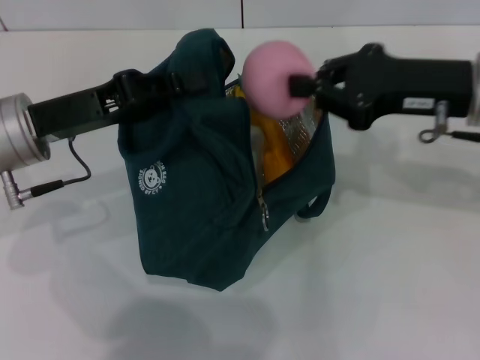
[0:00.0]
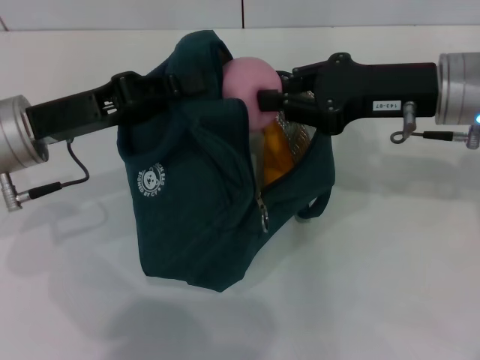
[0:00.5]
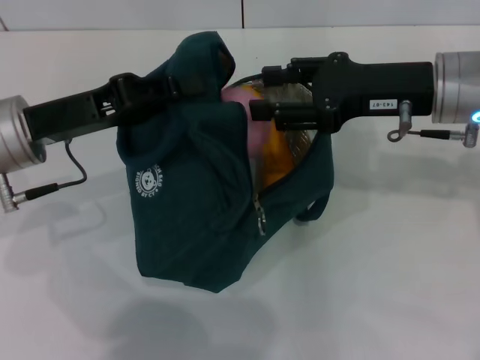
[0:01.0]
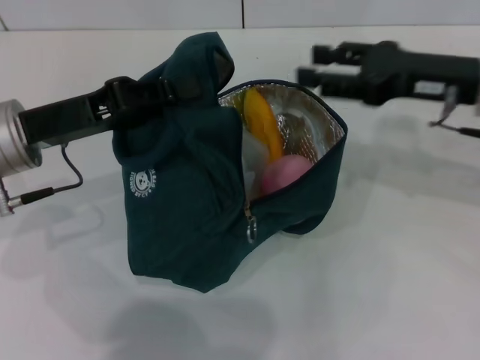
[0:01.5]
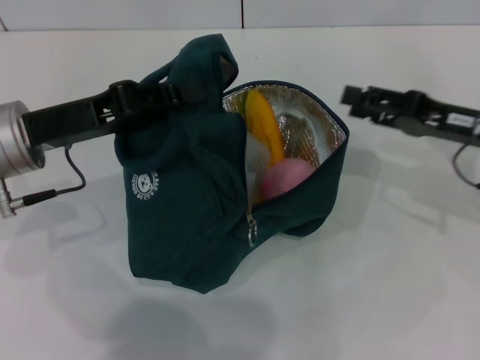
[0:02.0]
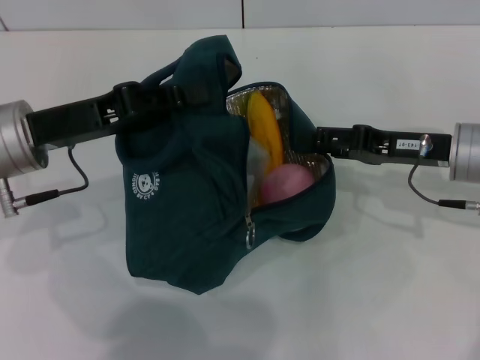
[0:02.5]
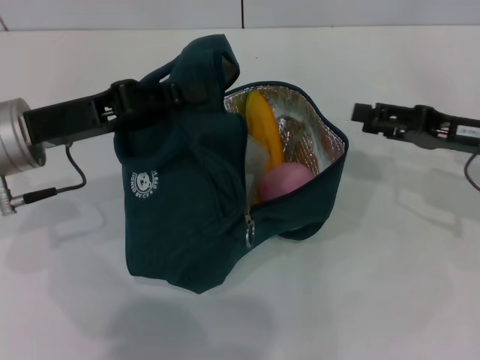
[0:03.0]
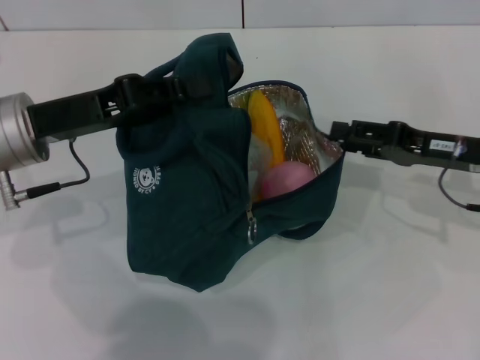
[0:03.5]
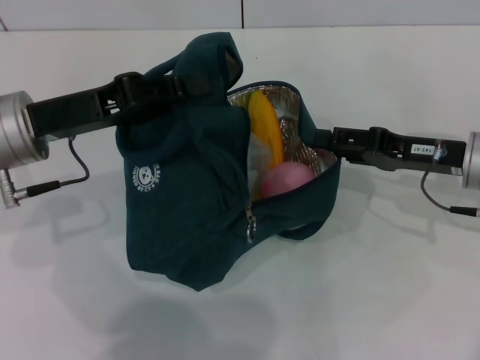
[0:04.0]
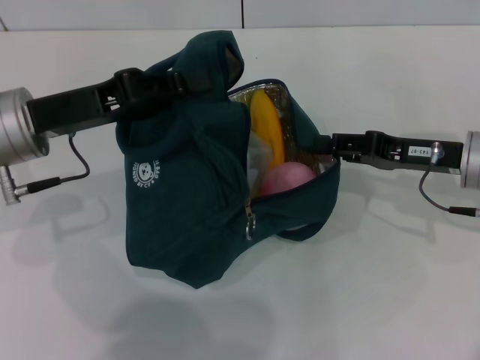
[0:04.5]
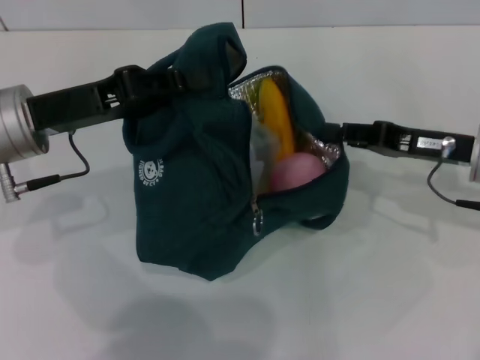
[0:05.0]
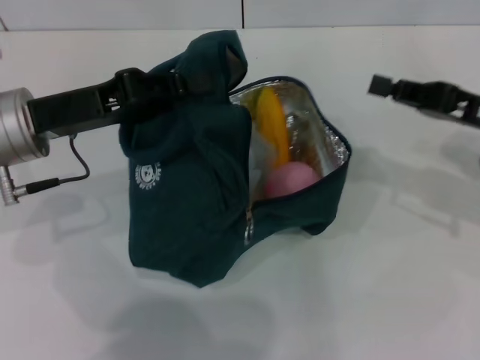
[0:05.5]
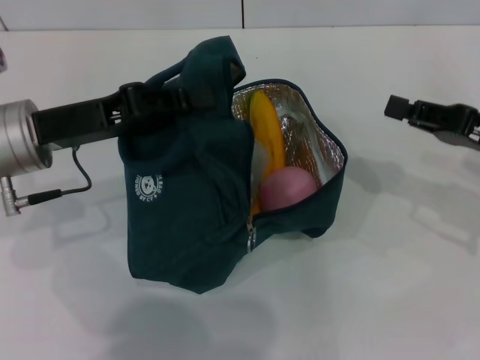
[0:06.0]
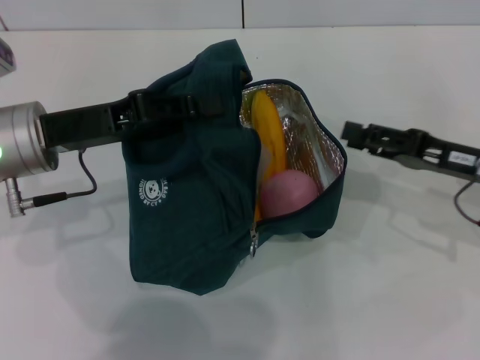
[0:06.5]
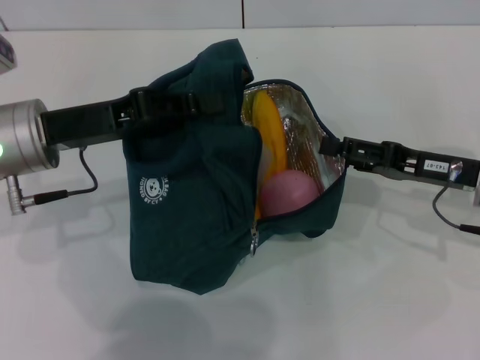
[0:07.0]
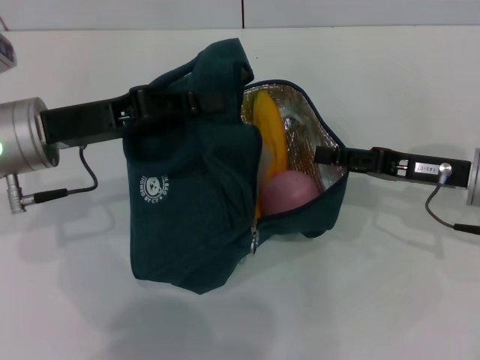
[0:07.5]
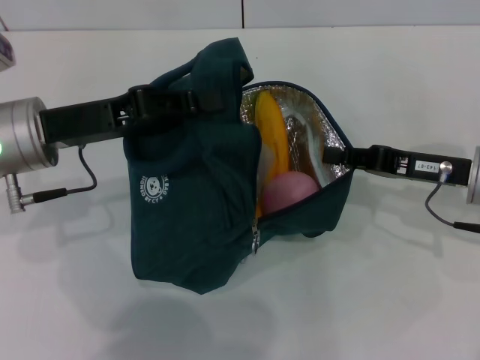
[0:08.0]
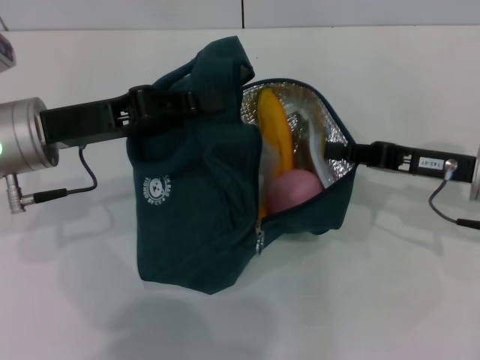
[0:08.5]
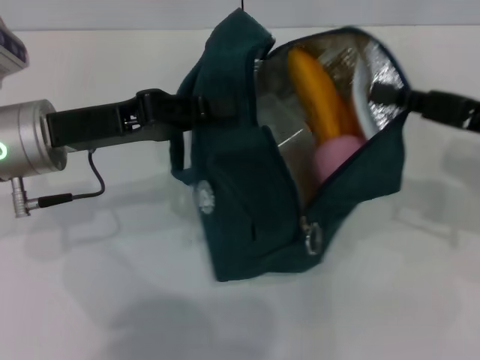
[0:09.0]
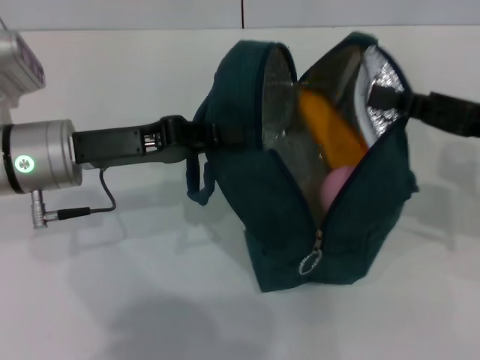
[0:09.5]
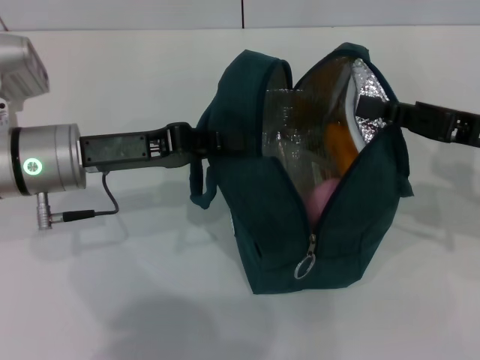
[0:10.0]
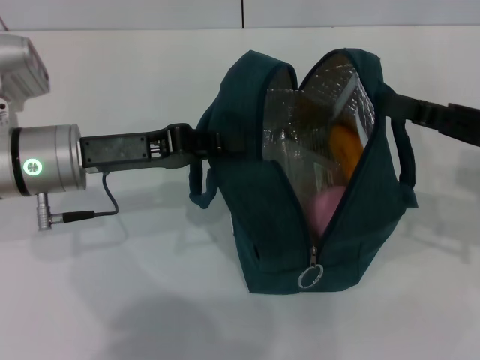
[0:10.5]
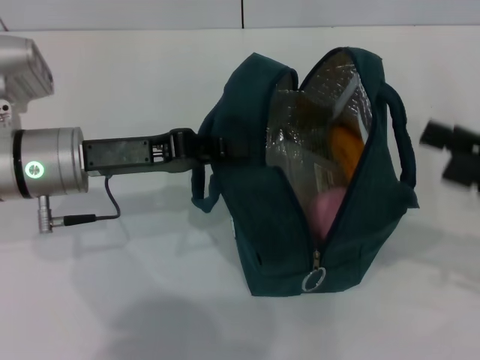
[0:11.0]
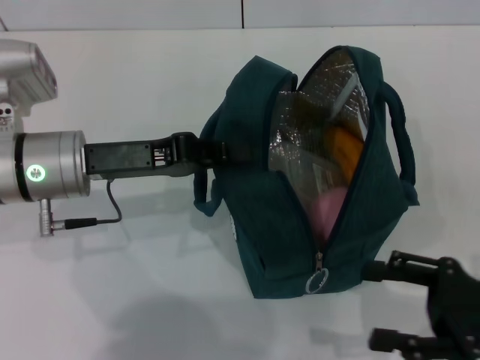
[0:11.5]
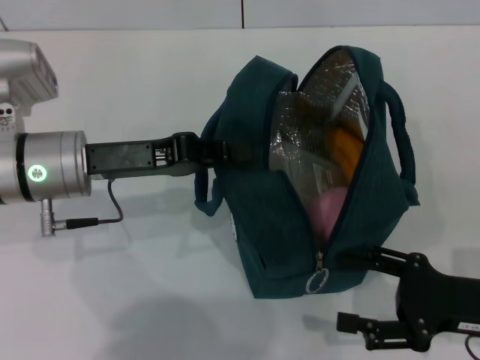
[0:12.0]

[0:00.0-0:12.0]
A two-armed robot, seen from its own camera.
Step, 0:01.5 to 0:10.5: Hold the lunch bag with your right hand.
0:00.0 to 0:02.0: The right gripper is displaced downward and to the right by roughly 10 cm, and opens its fingers.
0:02.0 to 0:04.0: The grippers make only small movements.
0:04.0 to 0:06.0: The right gripper shifts about 5 cm to the right, and closes.
0:06.0 to 0:08.0: The right gripper is displaced to the left by some 5 cm, and opens, then closes again.
0:08.0 to 0:10.0: The right gripper goes roughly 5 cm upward.
0:10.0 to 0:12.0: The right gripper is displaced backward and downward by approximately 15 cm, and opens up.

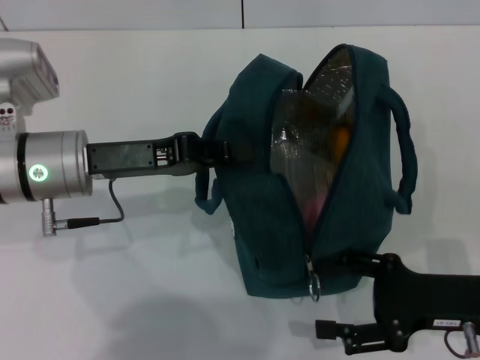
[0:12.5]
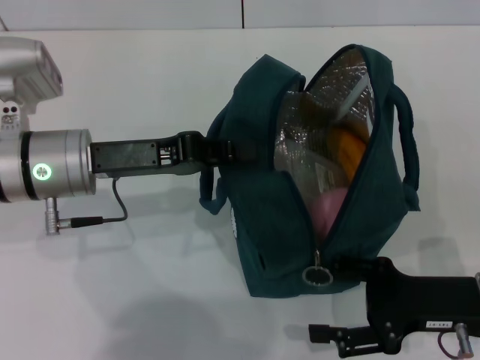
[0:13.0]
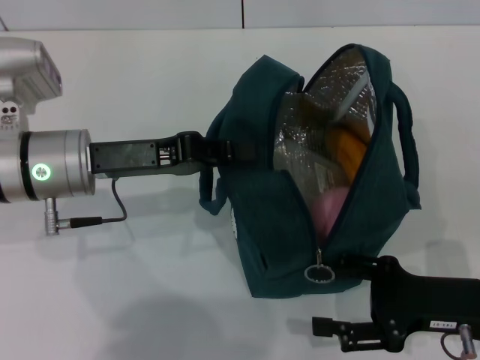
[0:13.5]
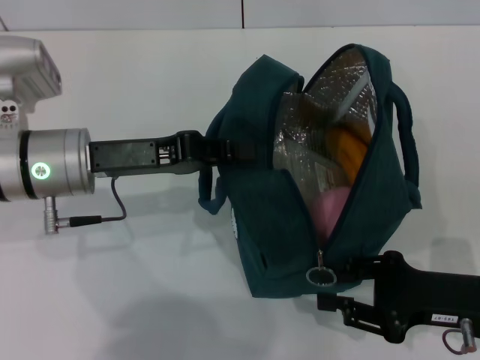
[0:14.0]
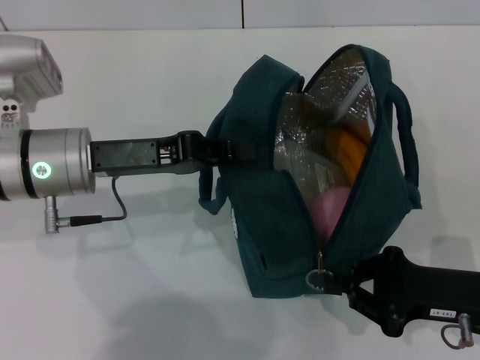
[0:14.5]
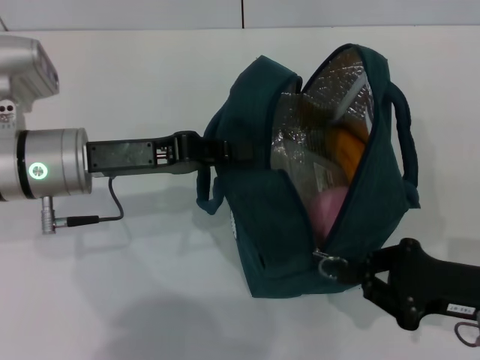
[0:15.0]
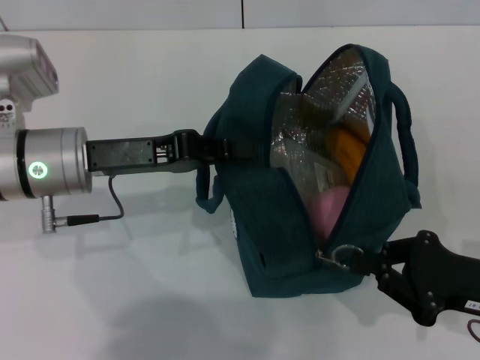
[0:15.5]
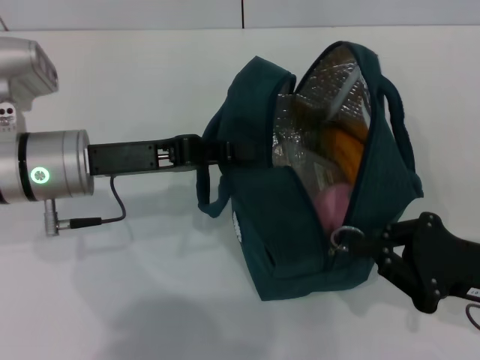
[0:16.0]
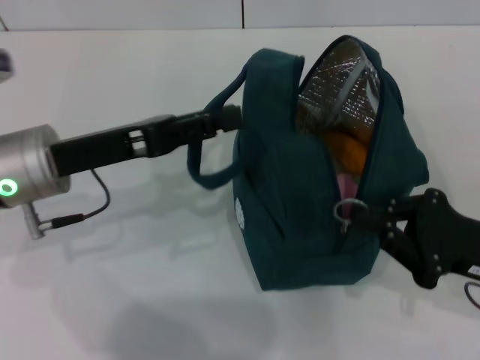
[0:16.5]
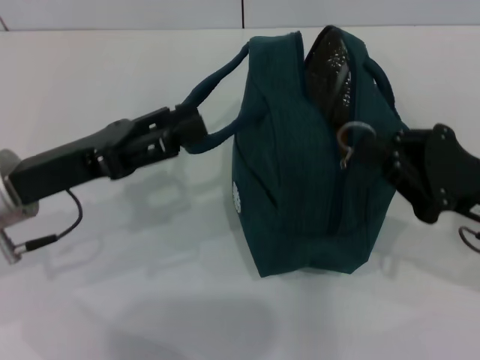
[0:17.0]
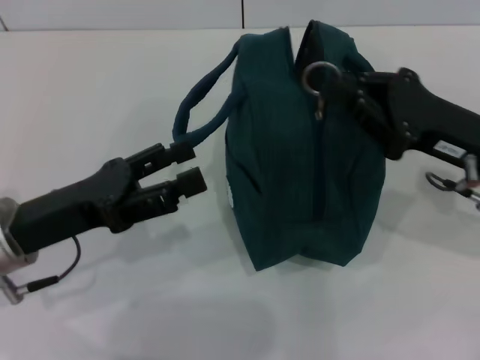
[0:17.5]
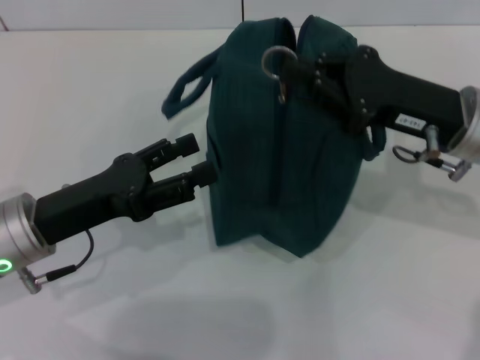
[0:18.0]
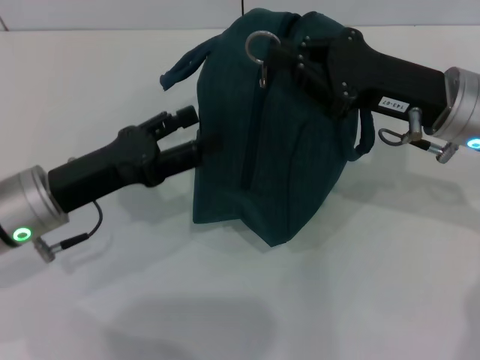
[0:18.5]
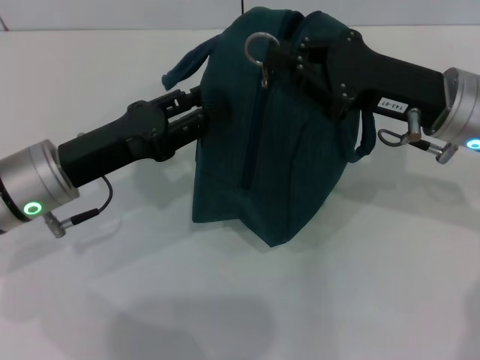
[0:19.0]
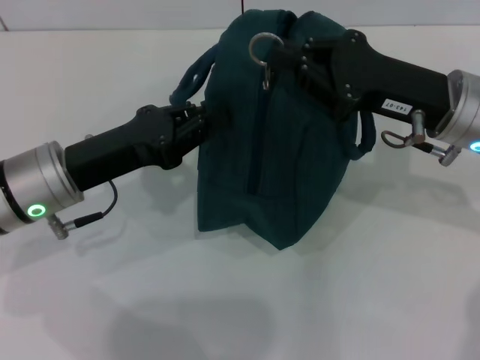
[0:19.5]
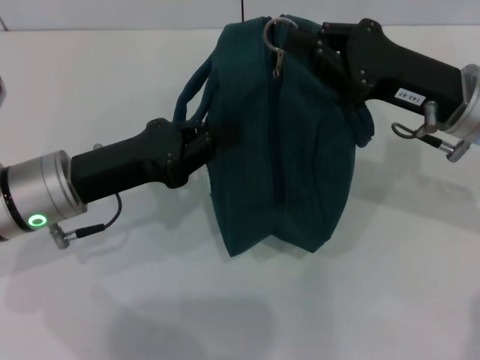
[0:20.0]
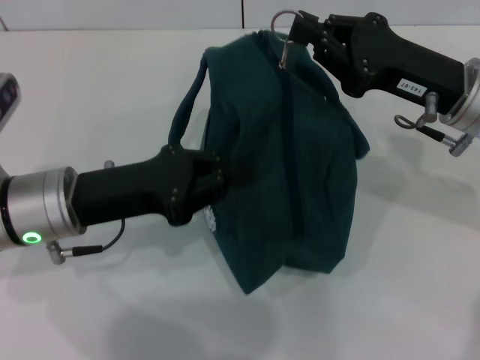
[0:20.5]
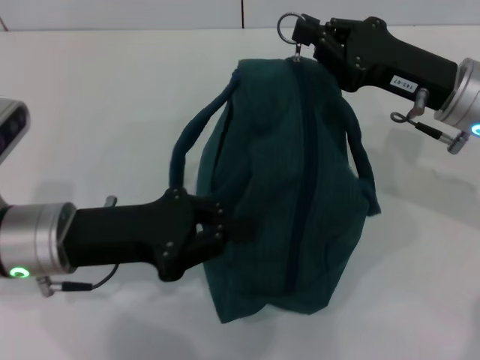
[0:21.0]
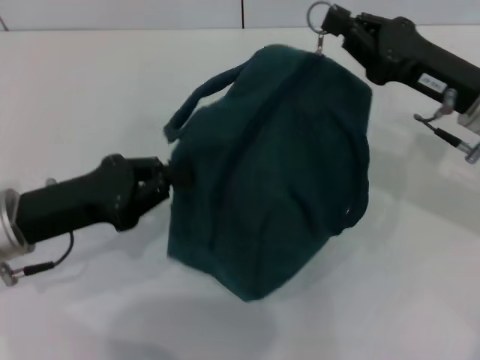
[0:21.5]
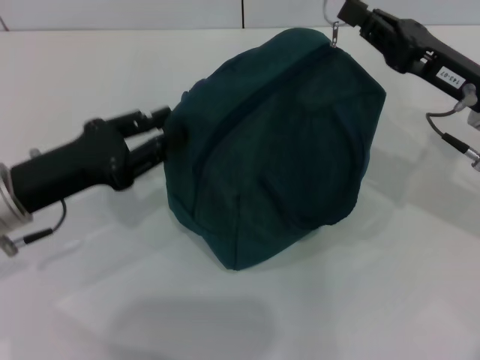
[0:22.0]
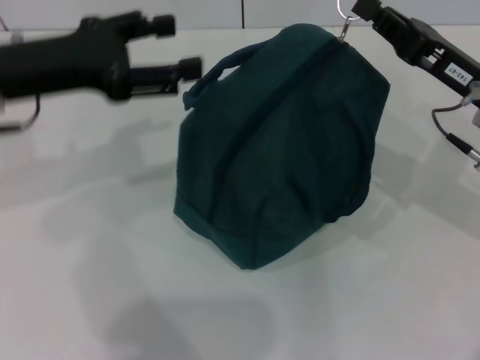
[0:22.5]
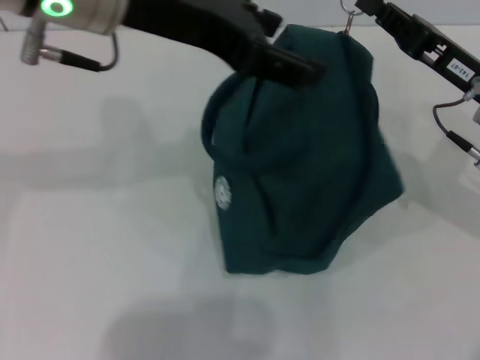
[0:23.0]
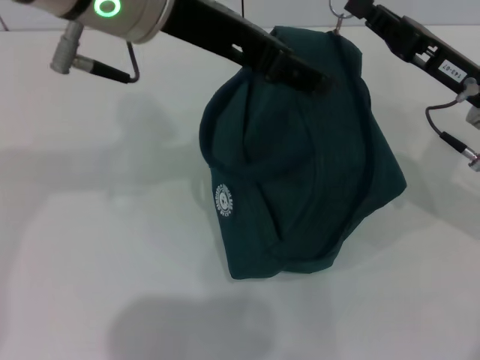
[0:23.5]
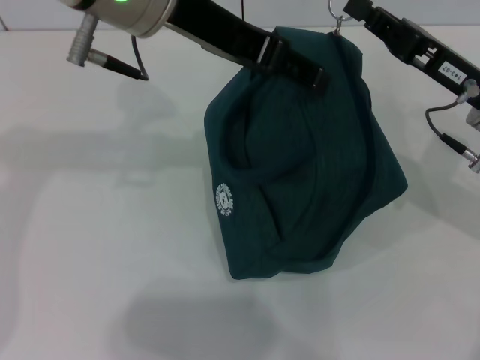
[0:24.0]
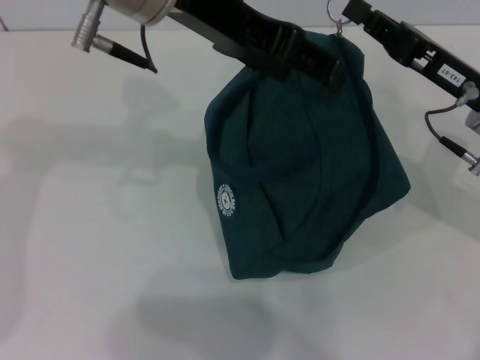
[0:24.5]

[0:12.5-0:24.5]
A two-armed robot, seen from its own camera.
Step, 0:12.5 to 0:16.0: Hold the lunch bag with your left hand.
0:12.5 to 0:14.5: The right gripper closes its fingers.
0:14.5 to 0:16.5: The left gripper opens up.
0:16.5 to 0:18.5: The right gripper heads forward, to the left and upward, covering some 15 cm, while the left gripper ends up about 5 cm from where it was, and opens its fingers.
0:18.5 to 0:20.5: The left gripper closes its fingers.
0:20.5 to 0:22.5: The left gripper shifts roughly 10 cm upward, and opens.
0:22.5 to 0:24.5: The left gripper moves to the right and upward, some 20 cm.

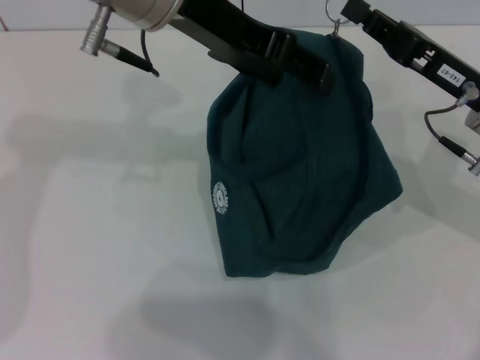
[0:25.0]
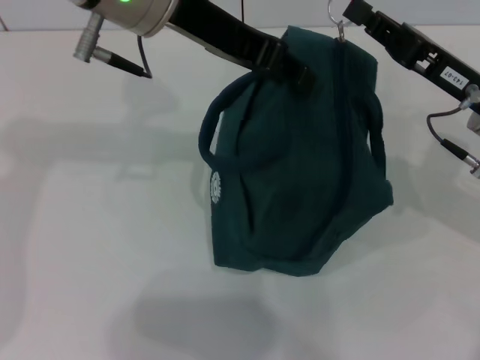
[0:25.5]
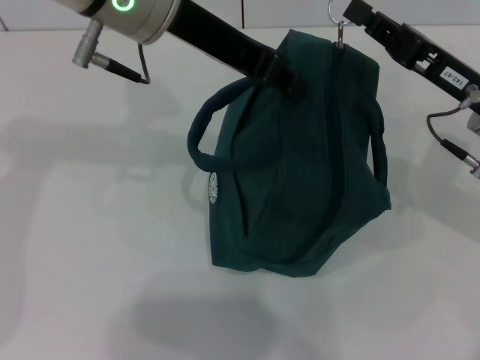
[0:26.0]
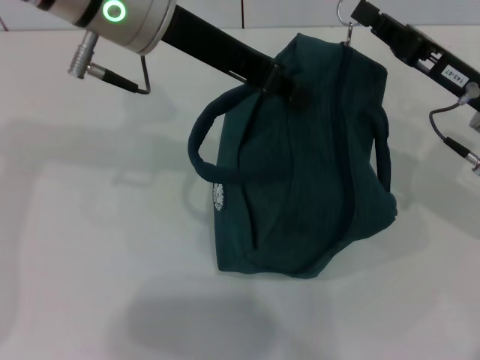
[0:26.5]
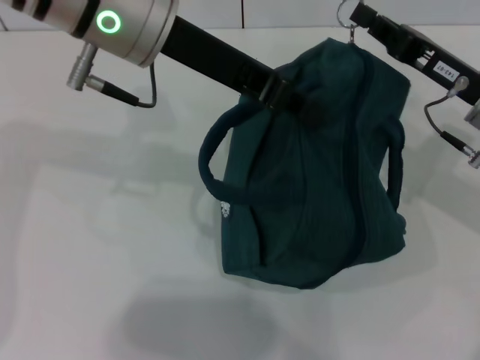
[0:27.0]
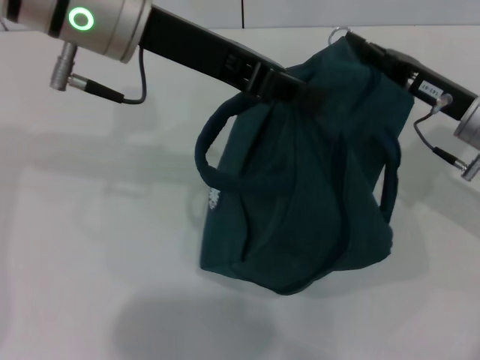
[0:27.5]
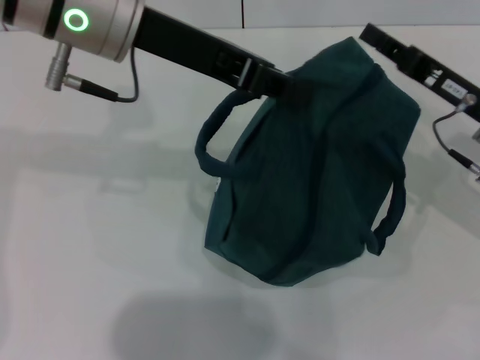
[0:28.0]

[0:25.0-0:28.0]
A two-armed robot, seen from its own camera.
Step, 0:25.0 to 0:27.5: Zip up the lunch bag with your right hand.
0:25.0 to 0:26.5: The left gripper closes its fingers.
0:26.5 to 0:28.0: The grippers move only a little.
